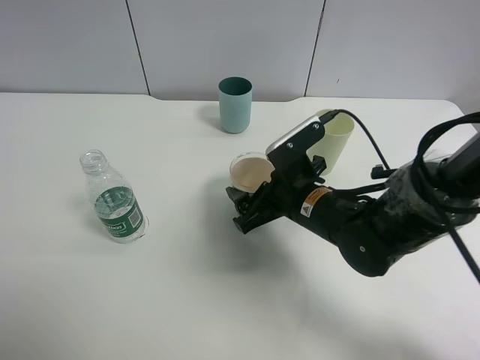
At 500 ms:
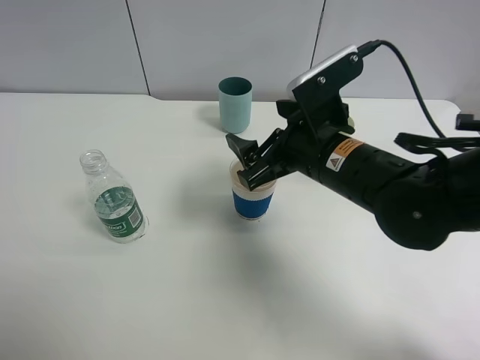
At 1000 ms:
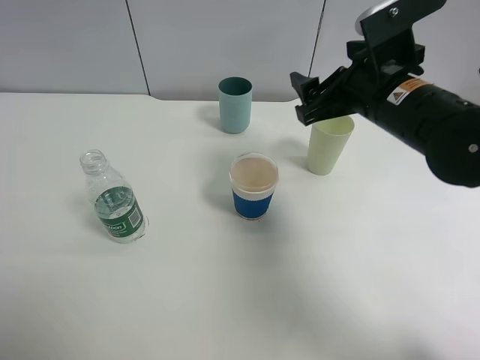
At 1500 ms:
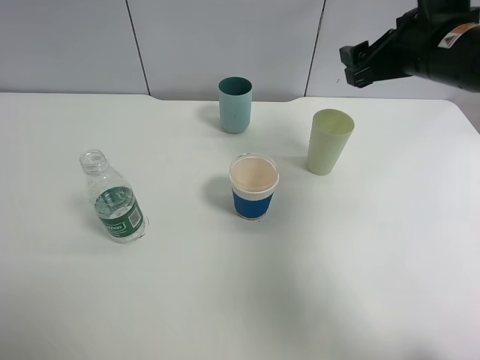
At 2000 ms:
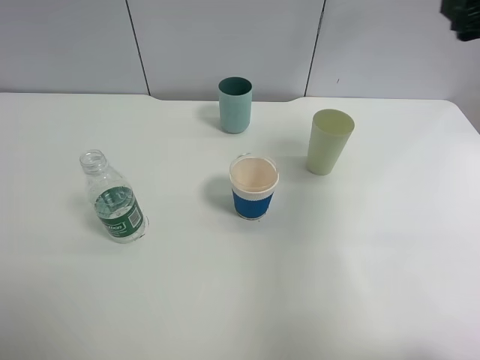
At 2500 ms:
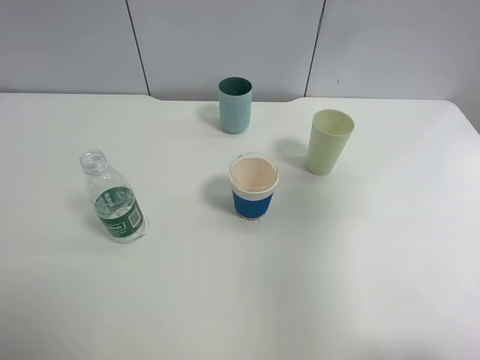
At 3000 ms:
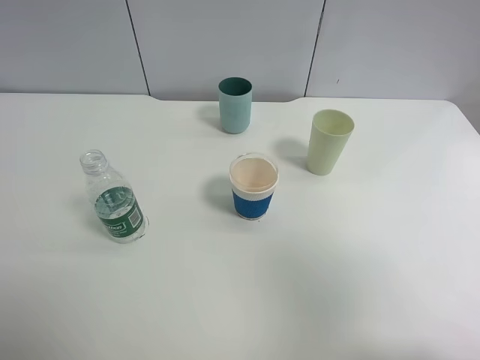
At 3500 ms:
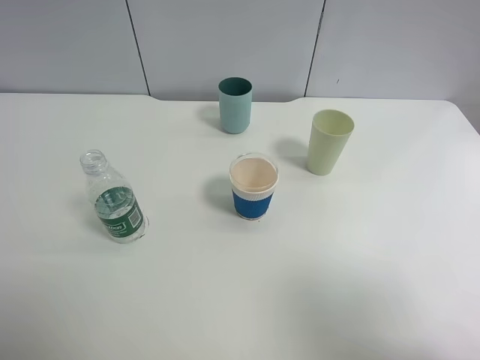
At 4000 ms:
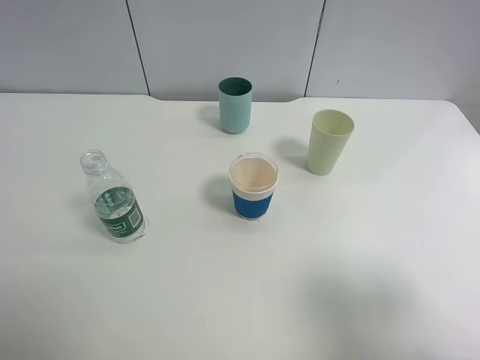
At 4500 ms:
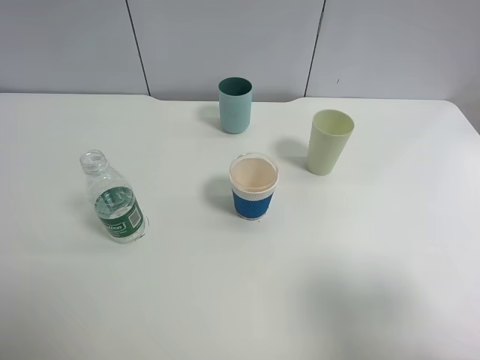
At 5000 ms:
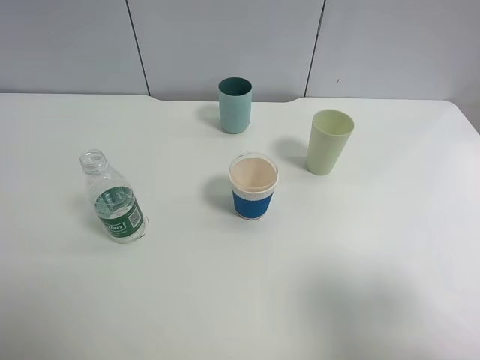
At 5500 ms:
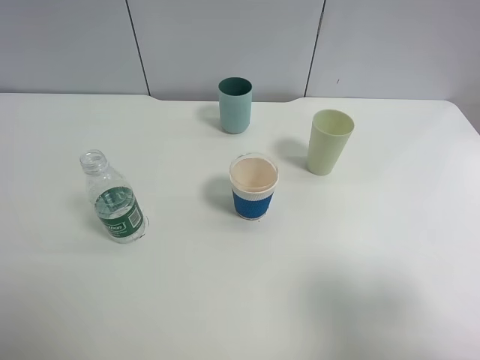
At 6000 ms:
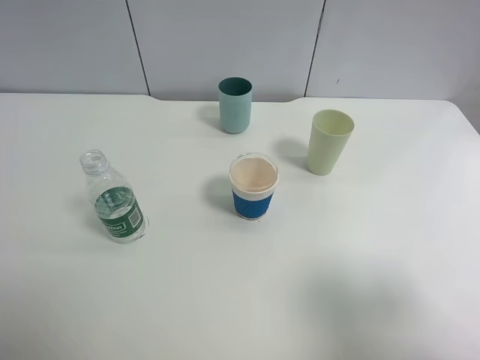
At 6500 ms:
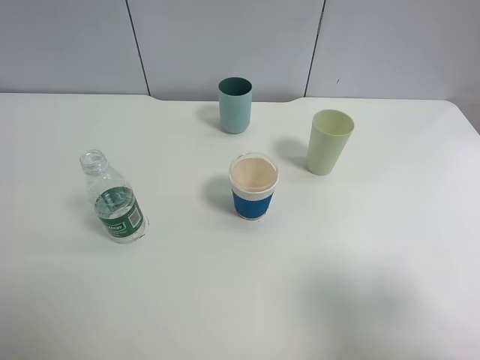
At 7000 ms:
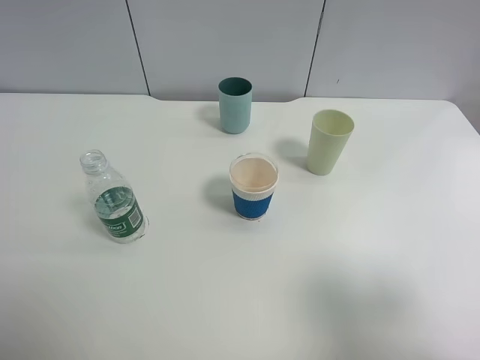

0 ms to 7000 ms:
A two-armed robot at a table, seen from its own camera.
Task of the whole recording: use a clamp to hold the bottle of the drink, pour the beverage into a random cup, then clamp the cup containing the drink and pour the drink into another random cup.
0 ms to 2000 ms: The right gripper heads upward and to the right, covering some 30 cm.
2000 ms to 3500 ms: The right gripper moves backward, some 30 cm.
5000 ms to 7000 ms: Both grippers stay about where they are.

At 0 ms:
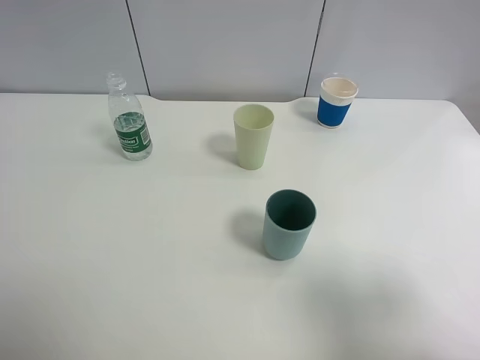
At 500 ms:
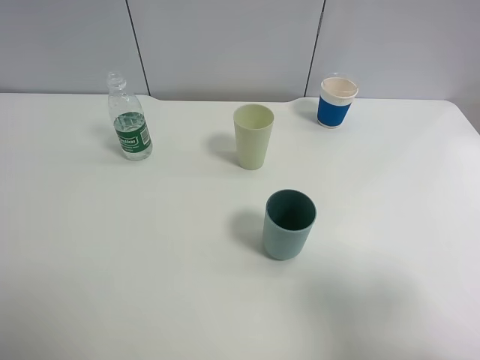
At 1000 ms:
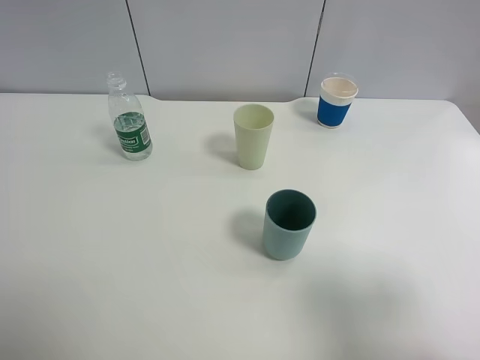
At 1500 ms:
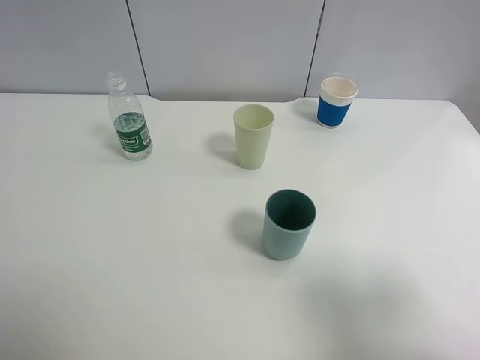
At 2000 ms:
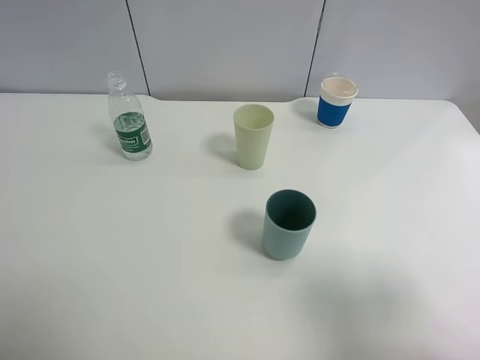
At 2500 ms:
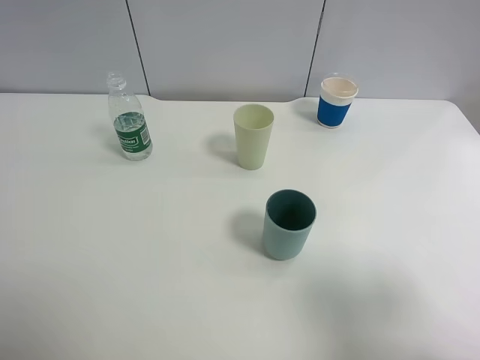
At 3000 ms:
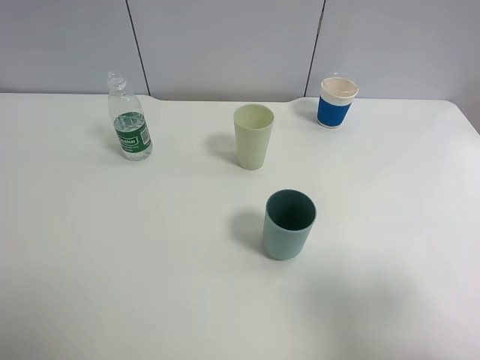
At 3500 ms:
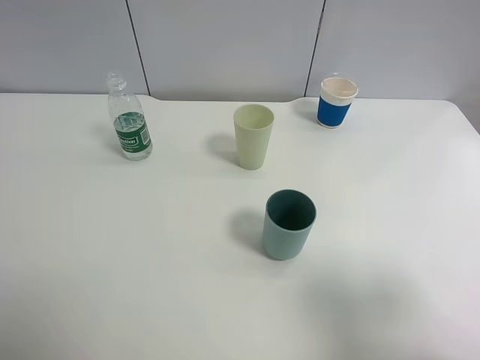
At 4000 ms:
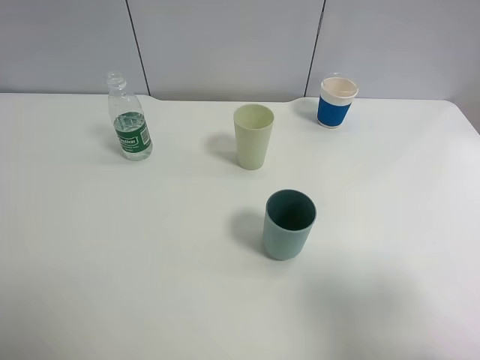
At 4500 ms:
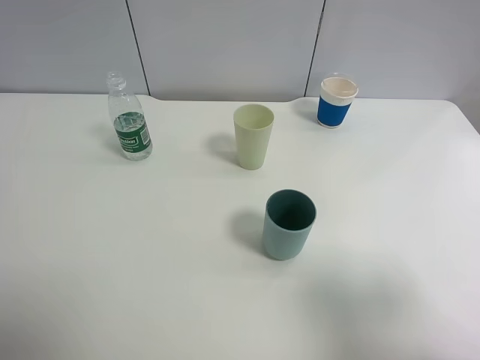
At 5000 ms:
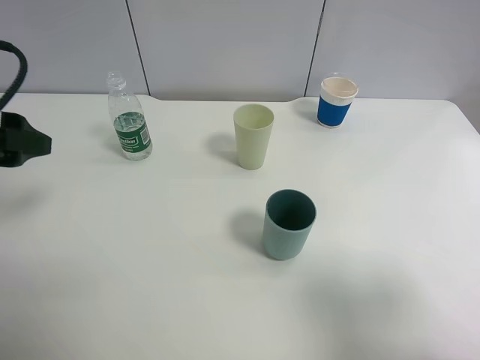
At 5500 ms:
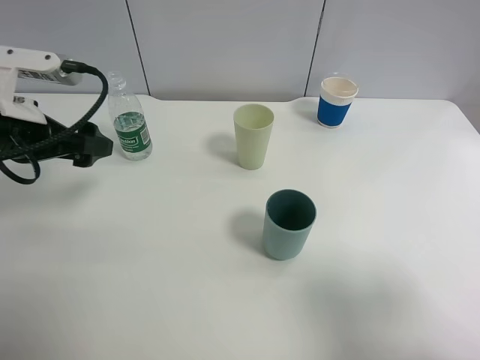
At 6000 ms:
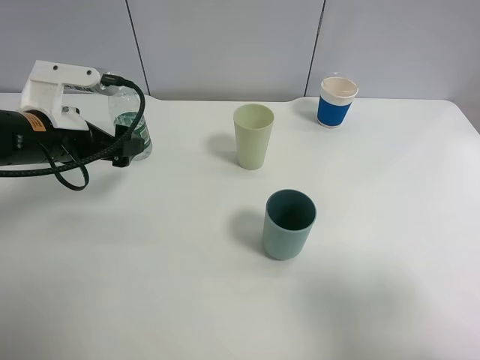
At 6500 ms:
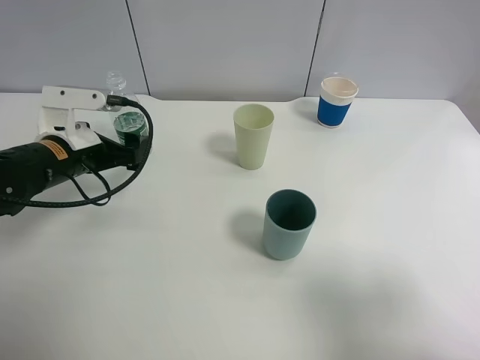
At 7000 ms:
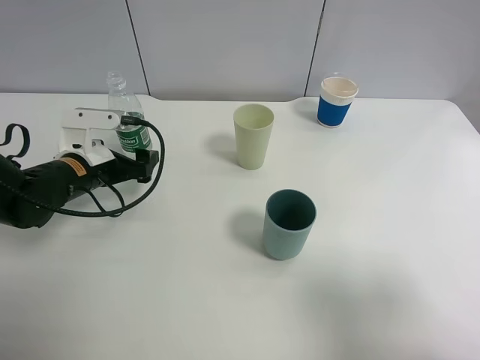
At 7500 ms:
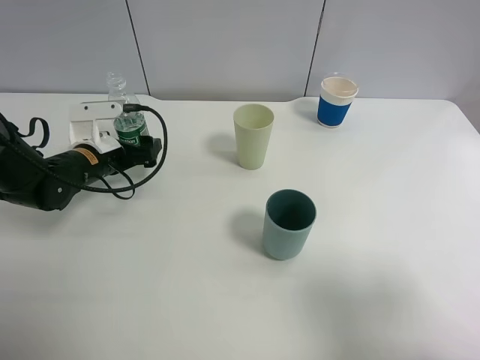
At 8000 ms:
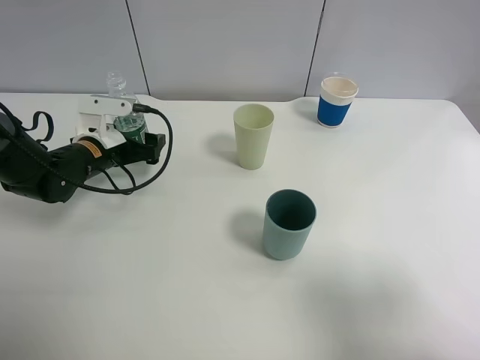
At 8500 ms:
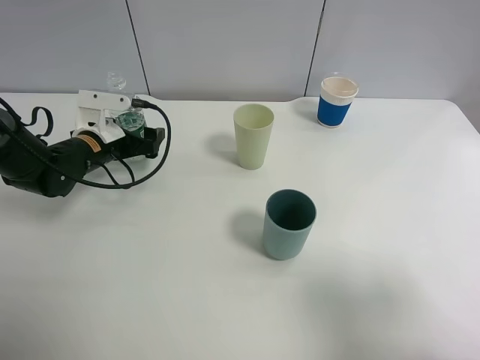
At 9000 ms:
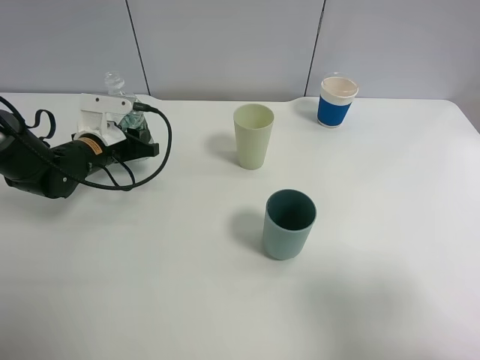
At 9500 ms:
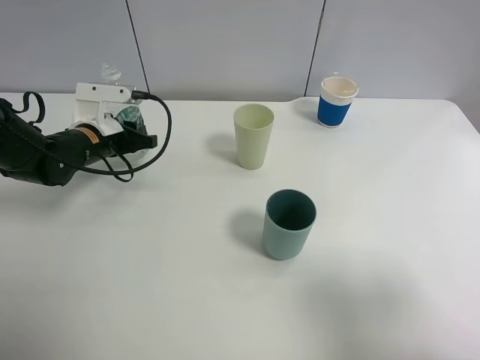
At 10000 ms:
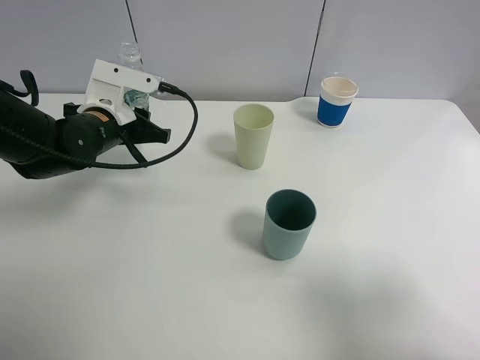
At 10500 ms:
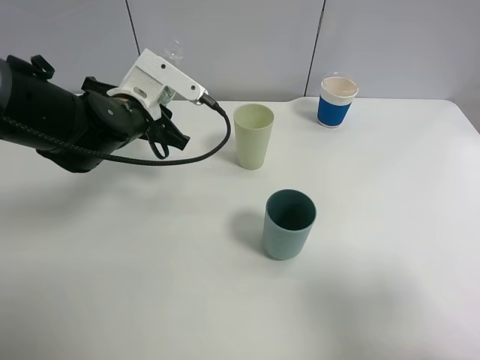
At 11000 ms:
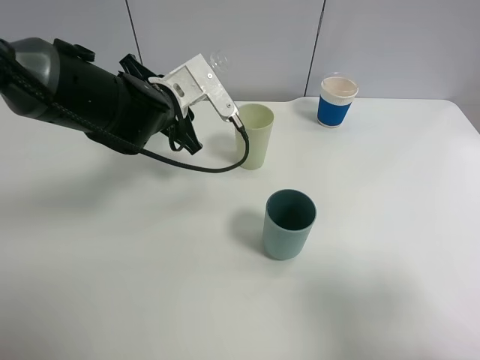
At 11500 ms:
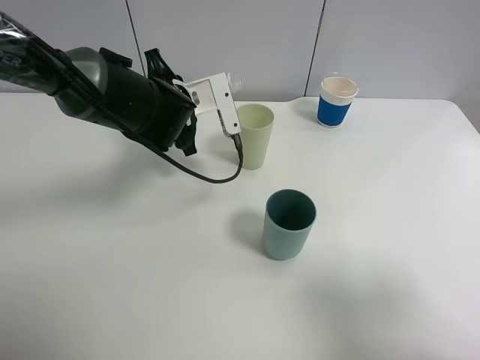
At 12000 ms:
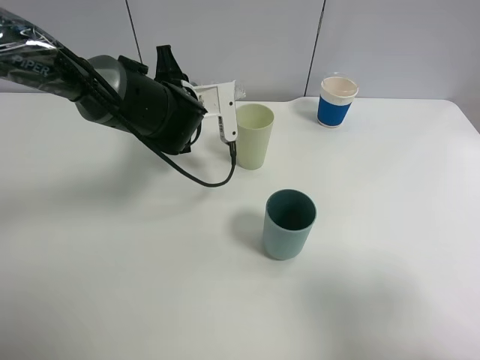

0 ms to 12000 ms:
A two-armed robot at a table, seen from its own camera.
Task of the whole recording: use a clamp to hold the bottle of the drink, pour the beverage into a random cup, then clamp the cup containing the drink and pour the drink into another random cup.
Step, 0 ms to 10000 ms: Pick up the water bottle with left gripper.
0 ms to 2000 ms: Both grippers stay about where they are.
4000 ms to 6000 ms: The left gripper heads forward and downward, covering about 25 cm.
6000 ms to 8000 ms: The left gripper moves downward and forward, some 10 cm.
8000 ms to 10000 ms: The left gripper is displaced upward by roughly 5 cm, and closes up.
10000 ms to 12000 ms: The left gripper is displaced to the right by some 10 cm.

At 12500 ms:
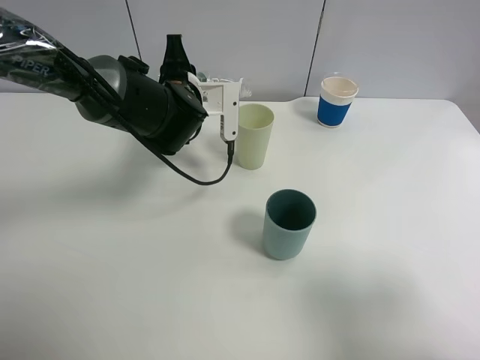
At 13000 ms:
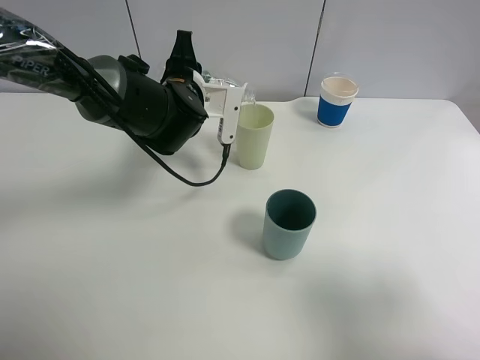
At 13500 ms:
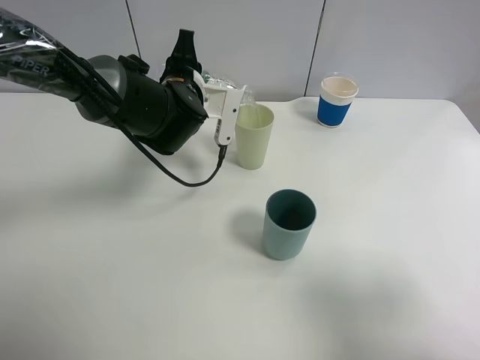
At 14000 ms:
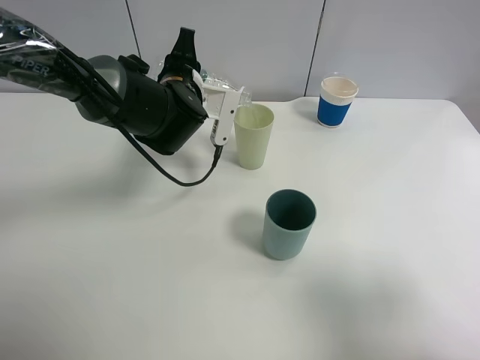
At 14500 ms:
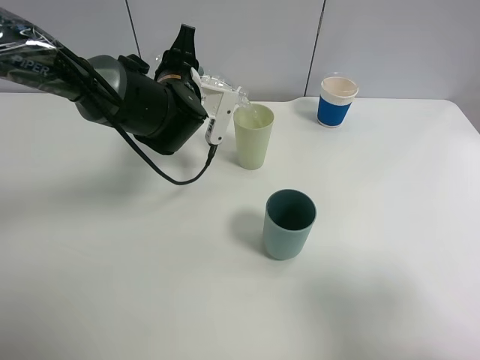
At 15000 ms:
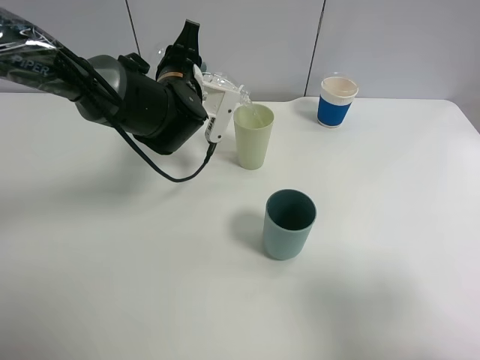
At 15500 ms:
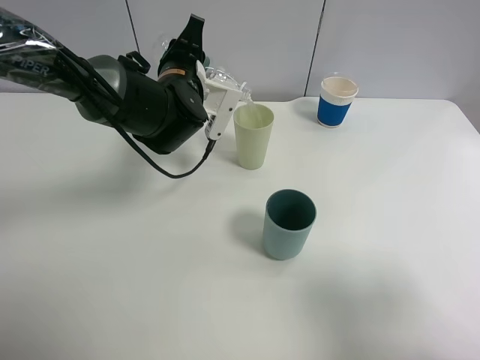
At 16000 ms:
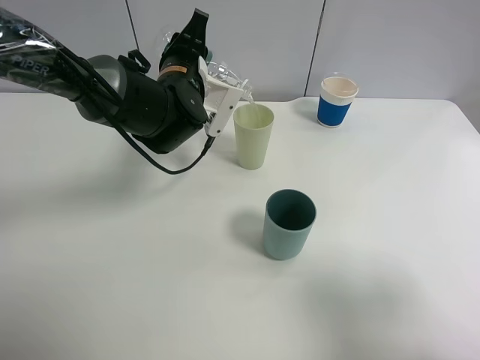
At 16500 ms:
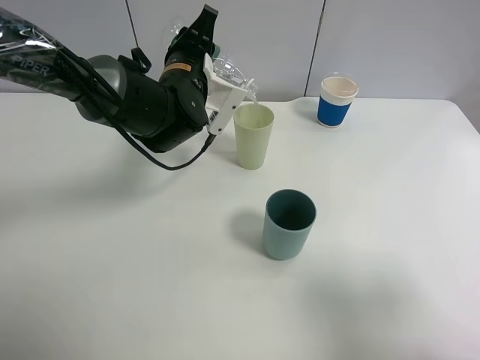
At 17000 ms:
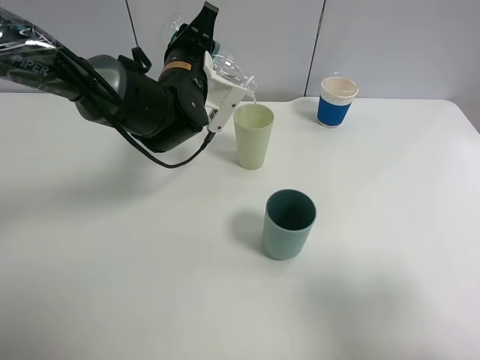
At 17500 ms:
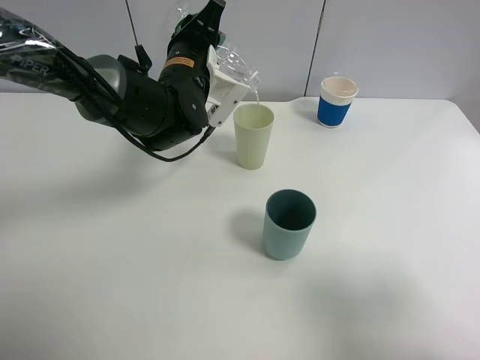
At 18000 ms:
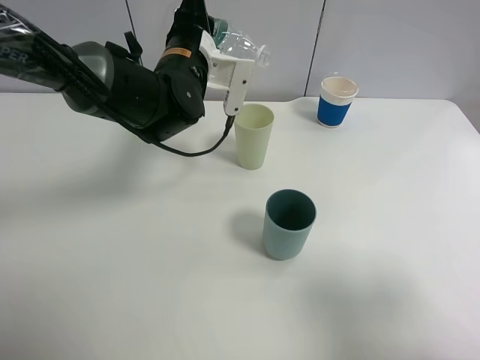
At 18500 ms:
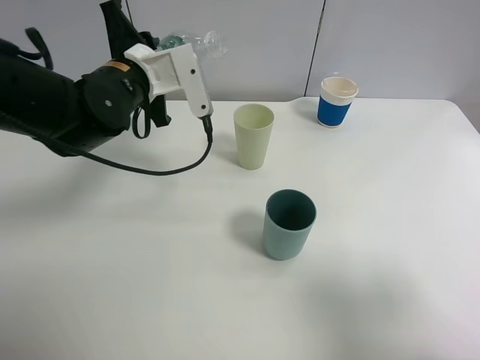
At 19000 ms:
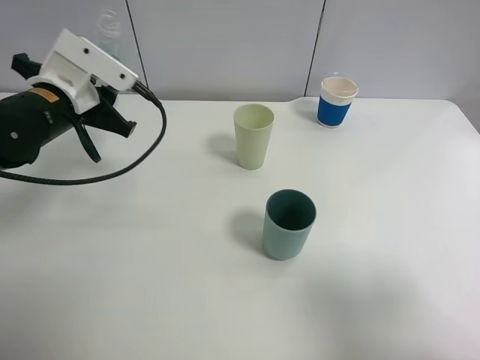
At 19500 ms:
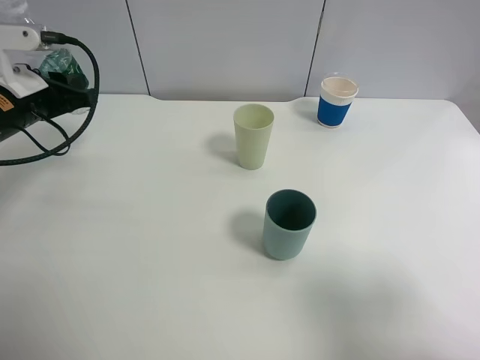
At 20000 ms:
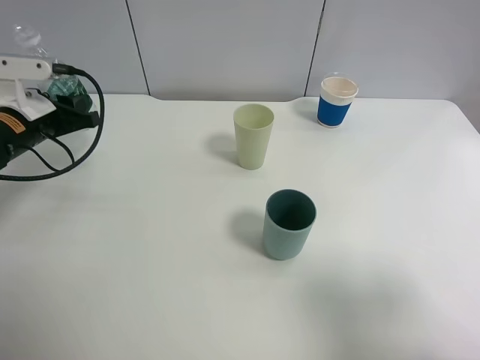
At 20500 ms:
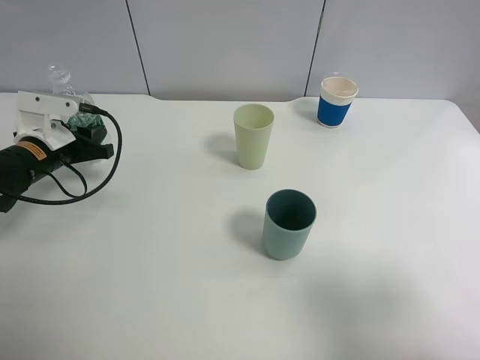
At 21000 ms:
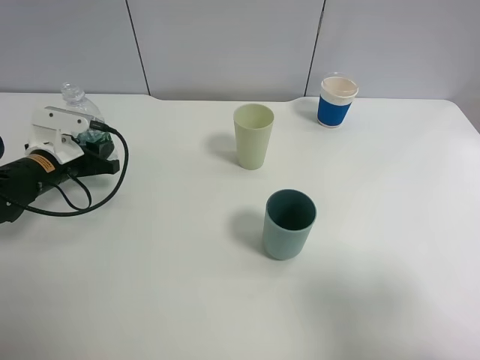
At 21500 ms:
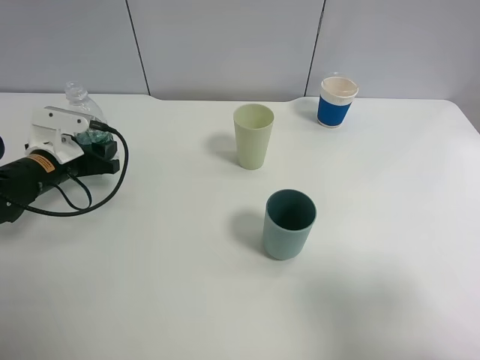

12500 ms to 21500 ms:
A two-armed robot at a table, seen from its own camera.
Task of the whole recording: use a clamp to hold the bottle of the drink, pour the beverage into a random cup, then clamp the cup containing the drink and pour the drink into another random cup.
Step, 12500 ms to 18000 ms: Pour the water into the green plastic cup with left gripper.
12500 ms to 14500 ms: The grippers make only small movements.
14500 ms to 17000 ms: The grippers move only a little.
17000 ms to 19500 ms: The left gripper is displaced to the left by some 20 cm.
19500 ms to 21500 ms: The left gripper shifts approximately 10 cm downward, and opens its fingers.
